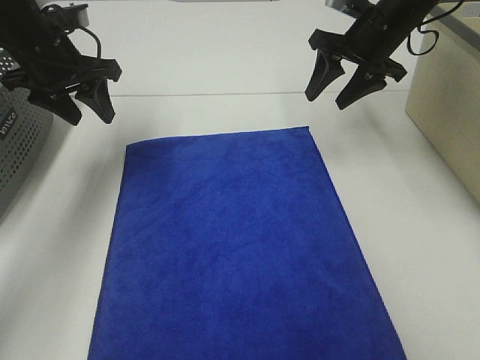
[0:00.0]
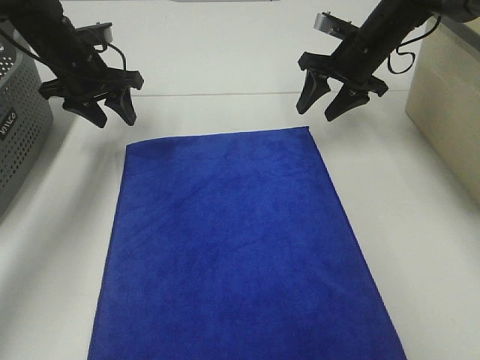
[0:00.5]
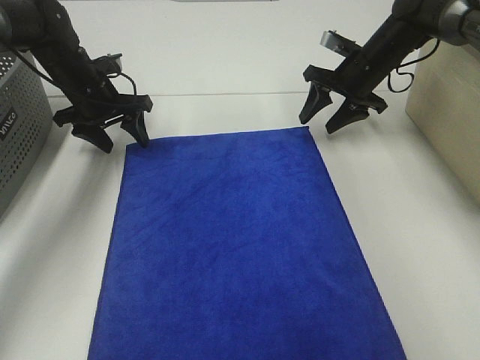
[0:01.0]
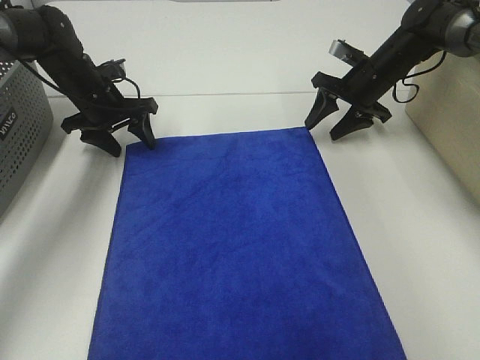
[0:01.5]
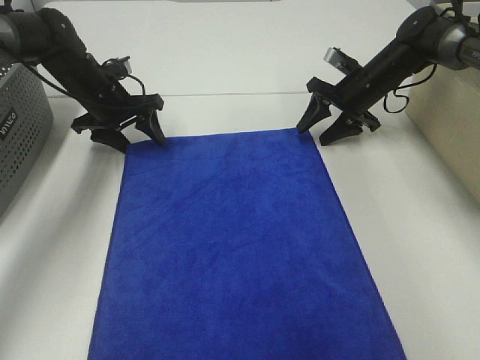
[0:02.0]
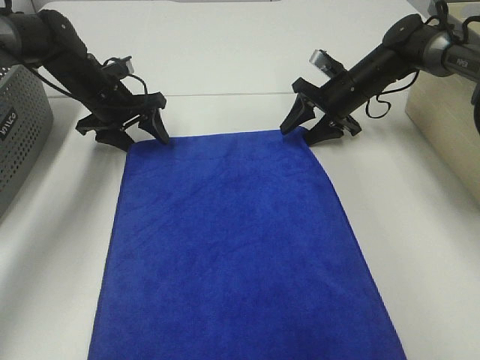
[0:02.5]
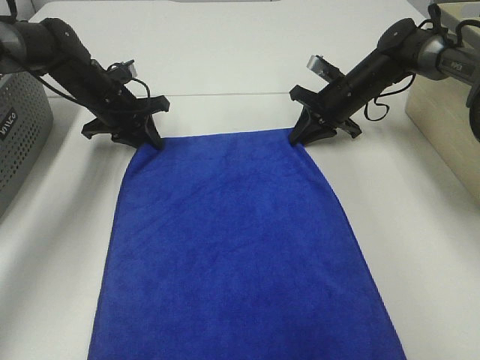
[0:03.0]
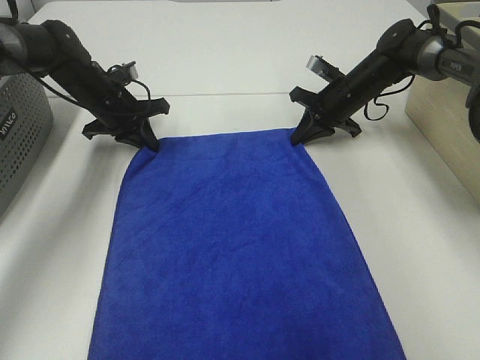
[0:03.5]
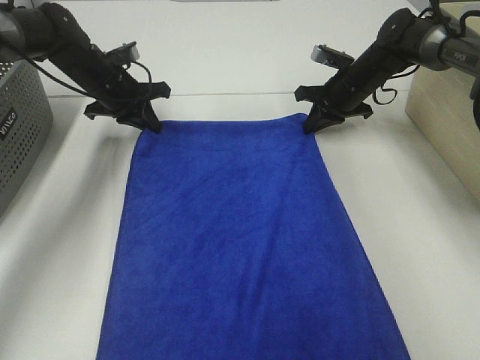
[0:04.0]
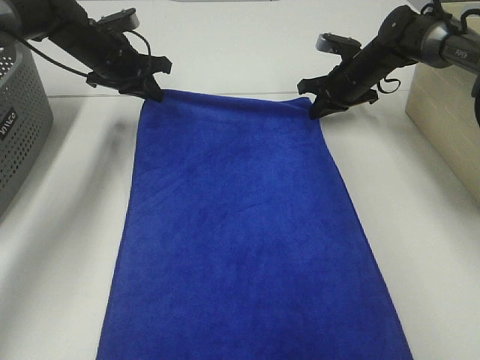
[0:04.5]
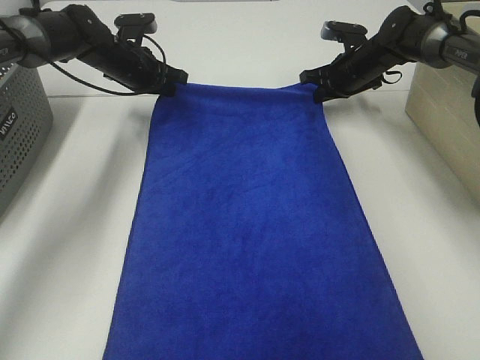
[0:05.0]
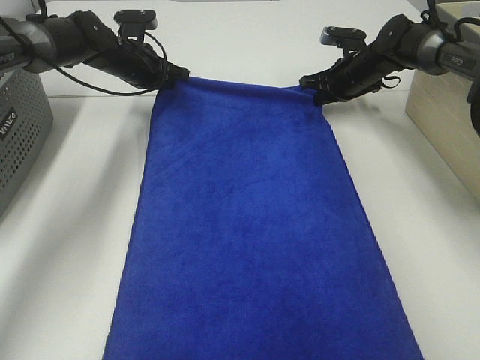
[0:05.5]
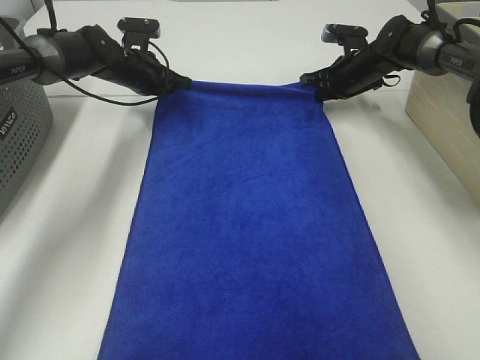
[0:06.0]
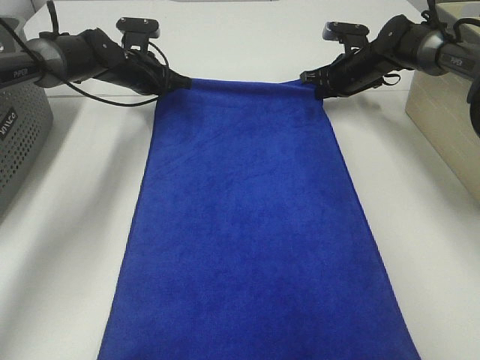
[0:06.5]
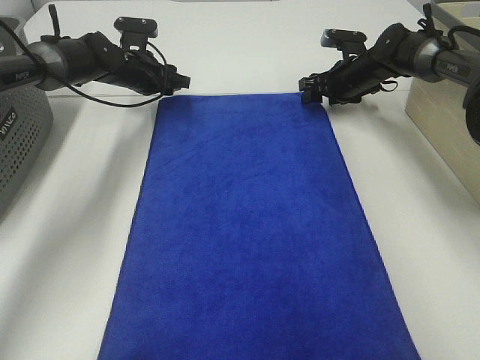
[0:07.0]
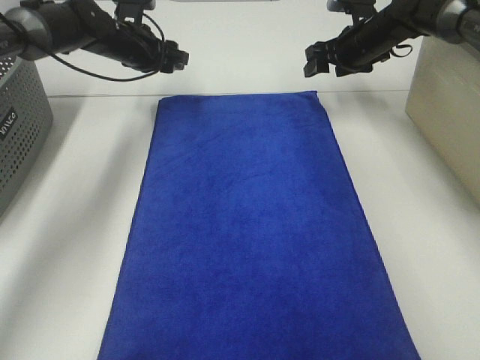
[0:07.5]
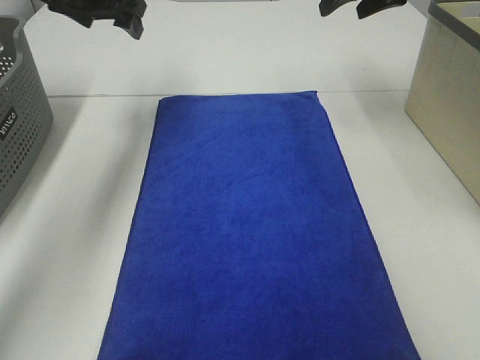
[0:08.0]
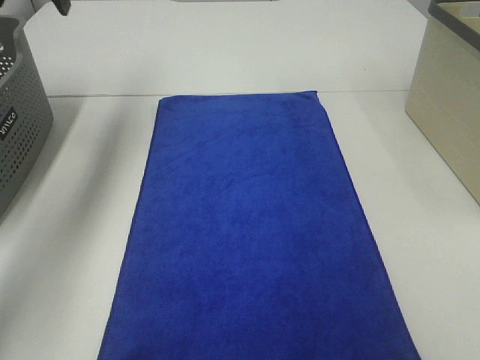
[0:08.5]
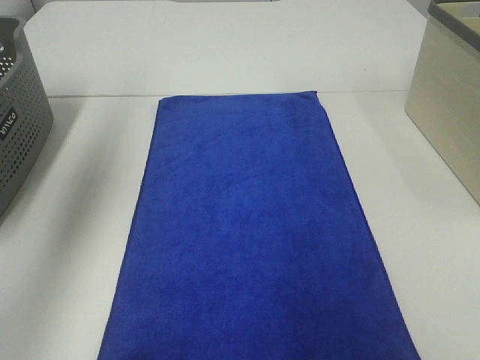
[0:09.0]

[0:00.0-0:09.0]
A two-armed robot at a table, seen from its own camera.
Task of the whole recording: Remove the towel and place it.
0:00.0 to 0:02.0: The left gripper goes roughly 15 cm downward and forward. The right gripper goes some 10 cm downward.
0:02.0 to 0:04.5: The right gripper closes its fingers. The left gripper ends up about 5 cm from where it was, and closes.
0:04.5 to 0:07.0: The left gripper shifts by roughly 5 cm, and opens its fingers. The right gripper opens up.
0:07.0 to 0:09.0: The grippers both shift upward and backward by roughly 50 cm.

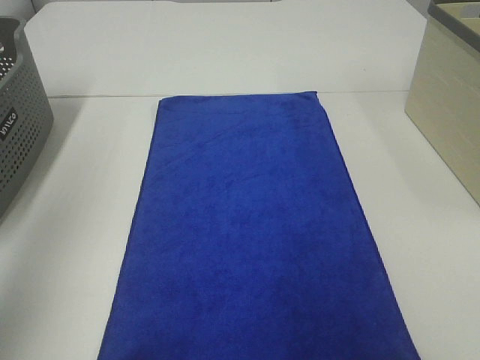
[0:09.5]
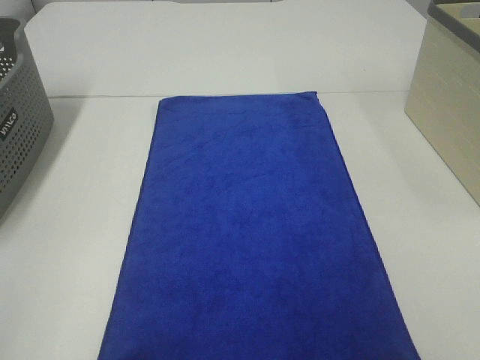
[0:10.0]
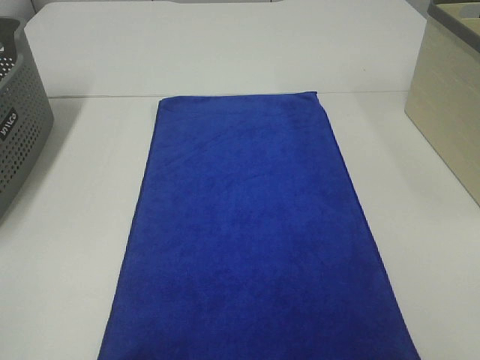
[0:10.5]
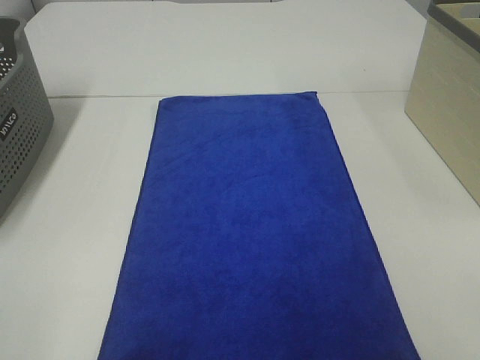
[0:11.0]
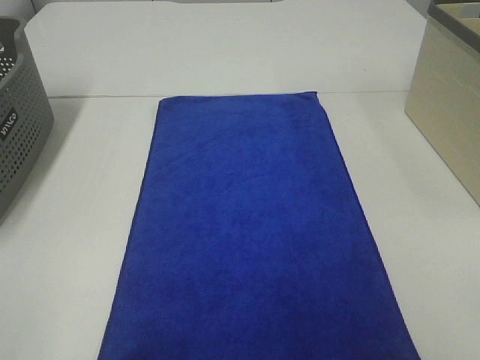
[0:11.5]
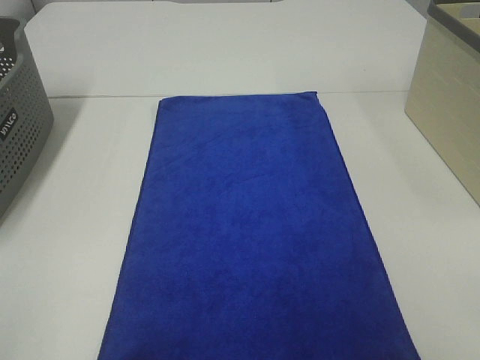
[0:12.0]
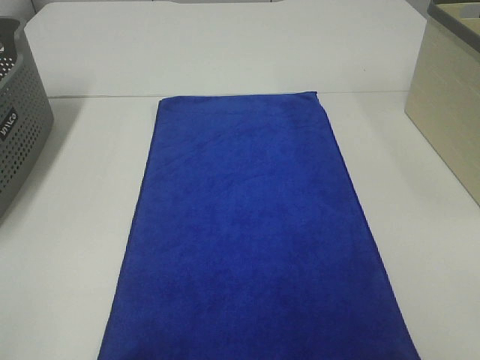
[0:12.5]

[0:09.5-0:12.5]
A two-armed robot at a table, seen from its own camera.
Task of the whole recording: Remove the towel and place it.
0:09.5 to 0:11.0: The left gripper moves backward and downward, some 20 cm.

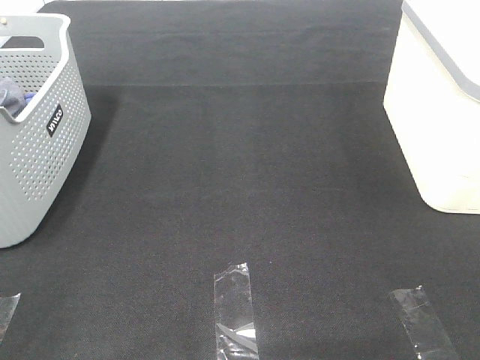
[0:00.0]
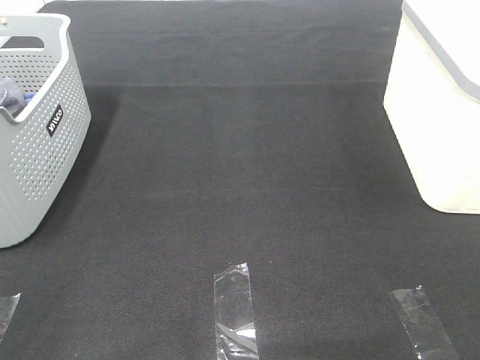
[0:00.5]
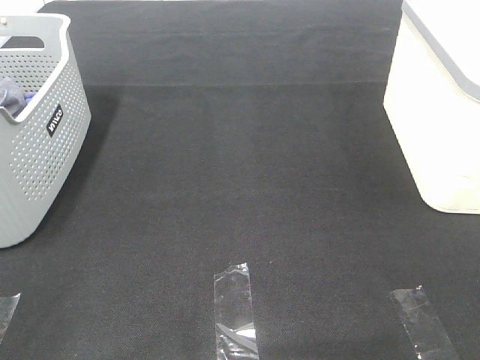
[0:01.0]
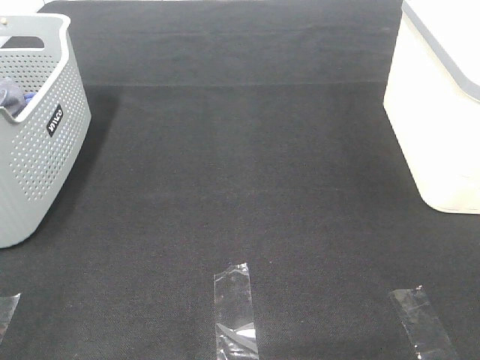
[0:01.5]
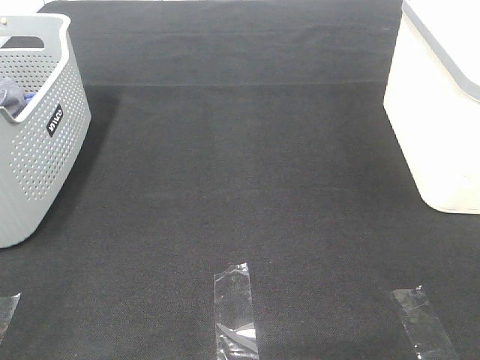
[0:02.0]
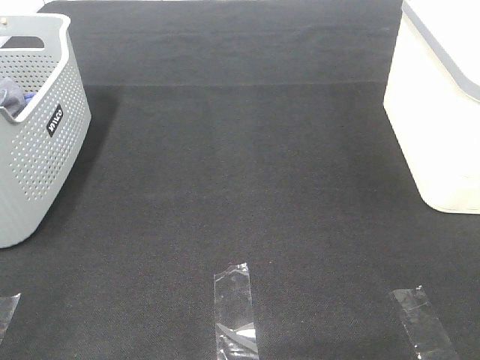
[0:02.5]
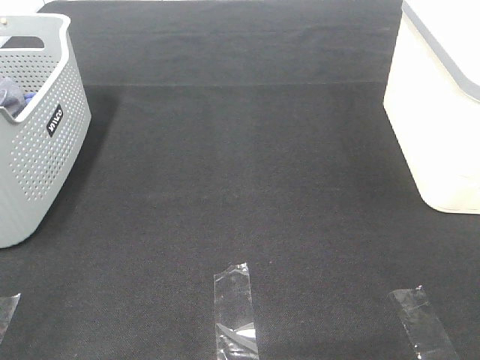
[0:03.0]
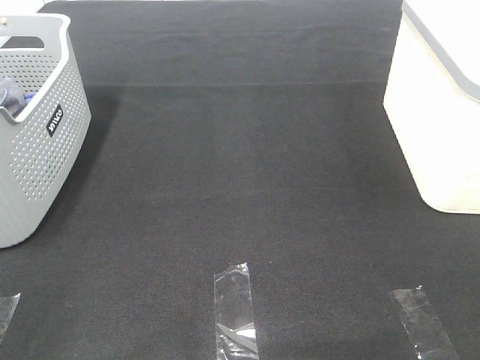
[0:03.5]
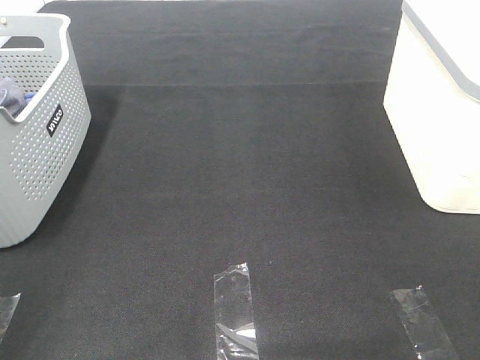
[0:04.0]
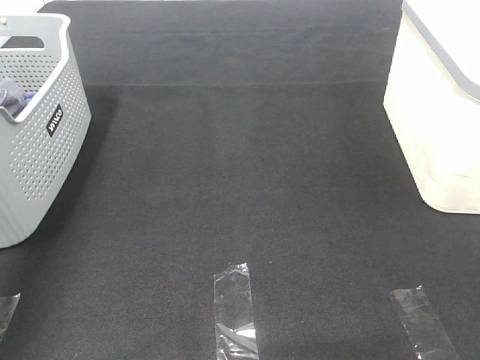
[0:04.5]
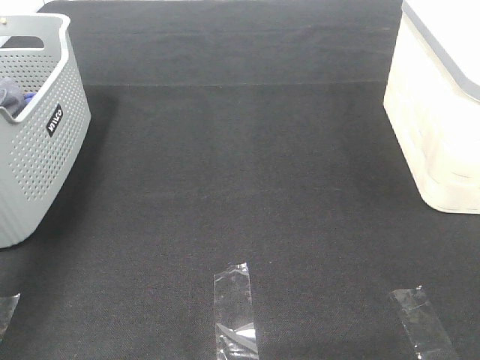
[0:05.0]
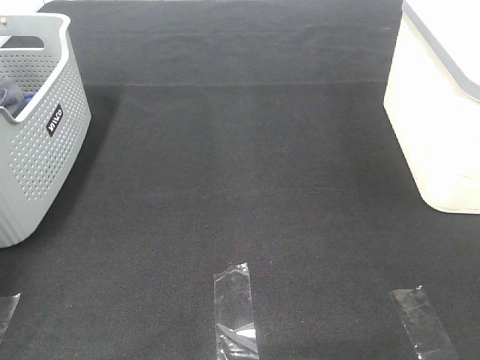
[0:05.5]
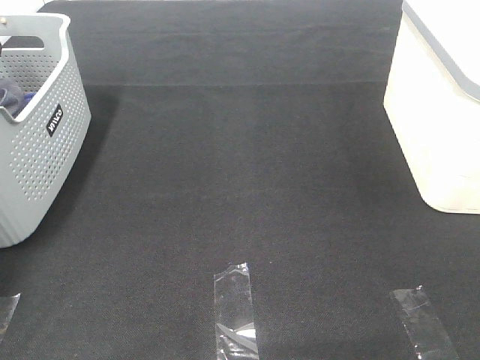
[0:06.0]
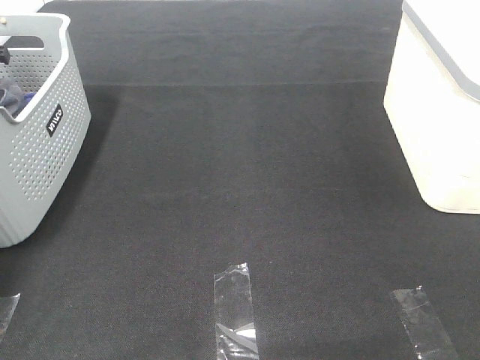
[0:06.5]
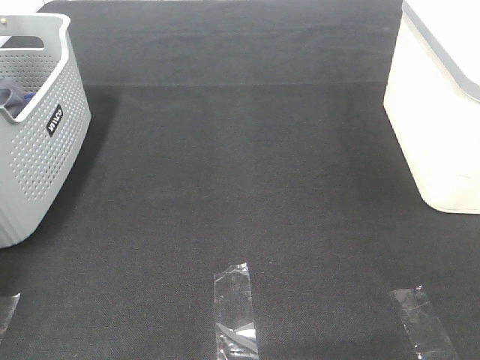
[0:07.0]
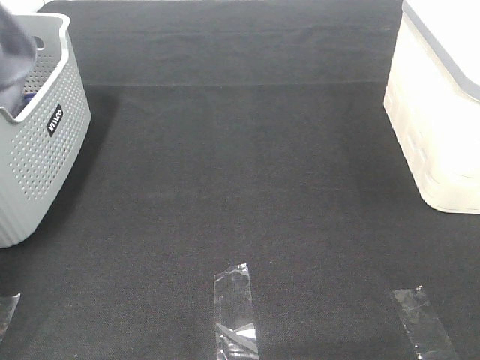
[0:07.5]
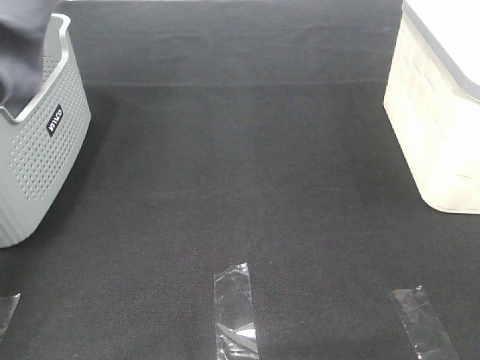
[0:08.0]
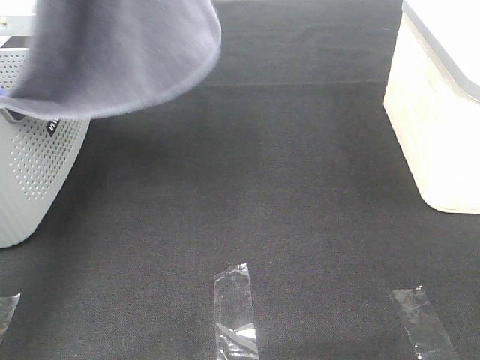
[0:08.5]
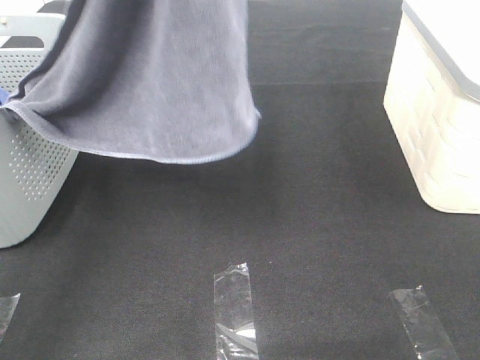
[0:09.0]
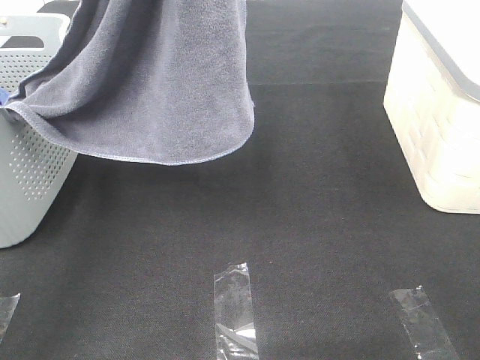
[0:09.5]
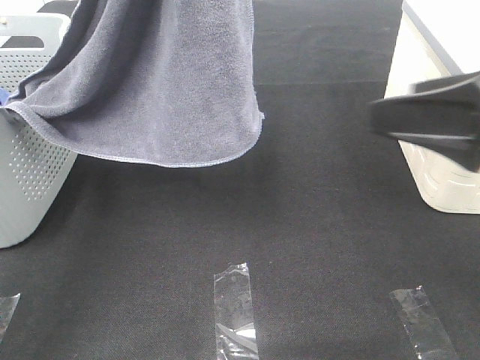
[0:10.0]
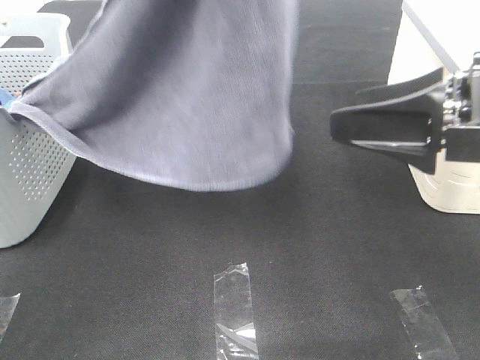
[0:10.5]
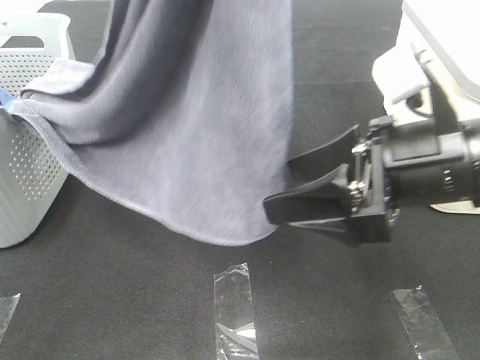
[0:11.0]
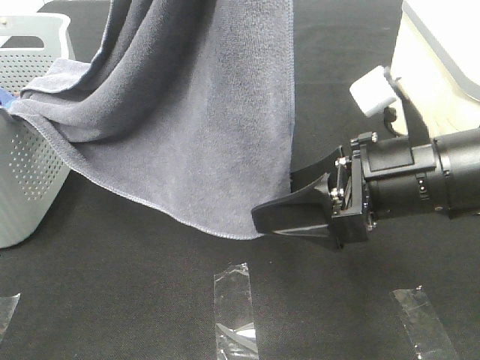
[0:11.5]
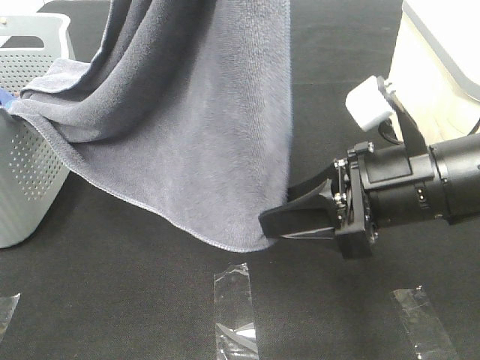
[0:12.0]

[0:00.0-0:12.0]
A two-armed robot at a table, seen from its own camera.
Task of the whole recording: Remove the towel and place it.
0:00.0 to 0:02.0: Both grippers stay put.
0:04.0 to 0:06.0: The left gripper goes approximately 40 cm forward.
0:06.0 to 0:08.0: The left gripper moves upward and backward, about 30 cm, and closes its fingers.
0:08.0 to 0:10.0: The left gripper moves to the right, roughly 15 cm. The right gripper shifts approximately 15 cm forward.
0:10.0 to 0:12.0: The right gripper goes approximately 10 cm downward and to the left, and closes up; the left gripper goes some 5 cm backward.

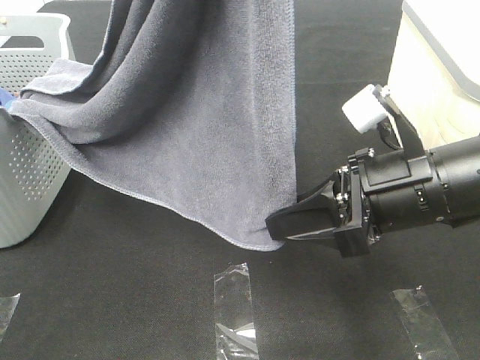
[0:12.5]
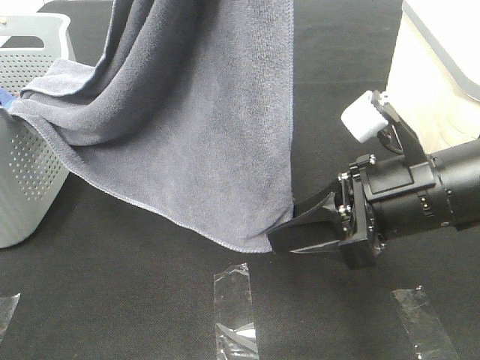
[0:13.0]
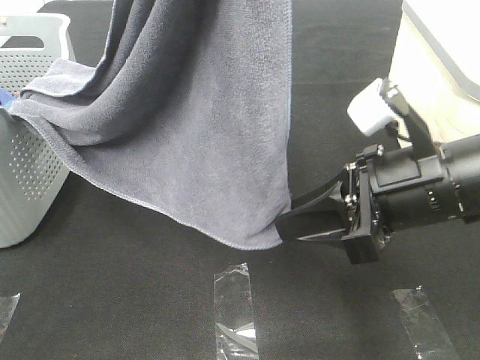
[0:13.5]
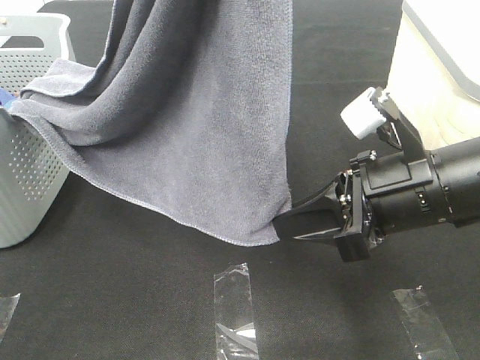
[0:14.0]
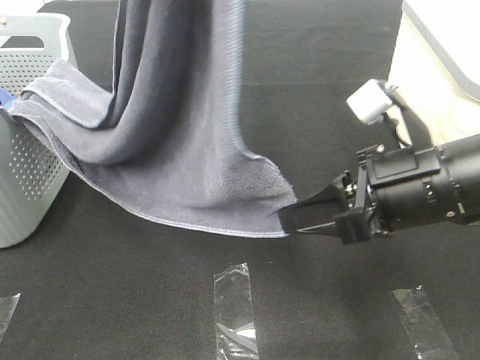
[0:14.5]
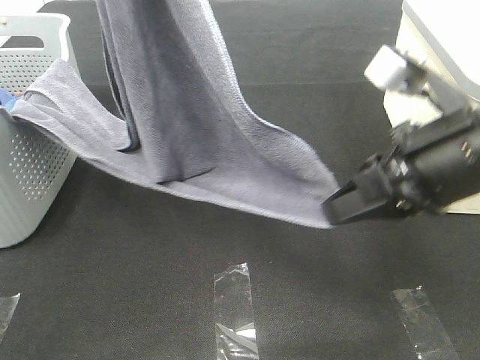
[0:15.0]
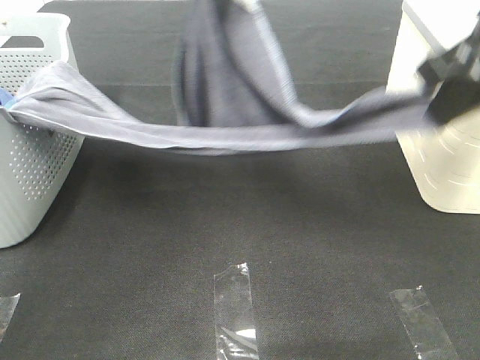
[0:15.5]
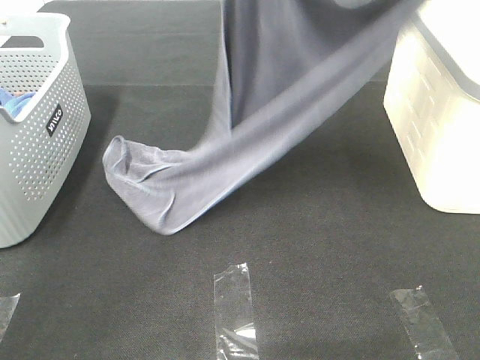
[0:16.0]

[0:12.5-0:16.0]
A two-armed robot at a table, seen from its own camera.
Task of the whole recording: Remove the towel and place it.
Step, 0:12.5 to 0:14.5: Right hand: grab a corner of the grey towel and straighten it.
0:12.5 to 0:14.5: The right gripper closes its fingers.
0:14.5 to 0:16.0: The right gripper is displaced upward and forward by approximately 25 cm, while the left gripper heads forward and downward, covering approximately 15 cm.
